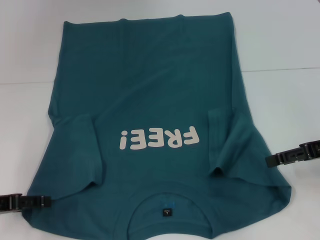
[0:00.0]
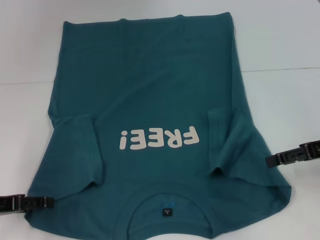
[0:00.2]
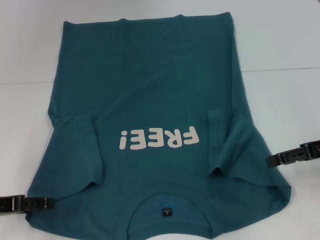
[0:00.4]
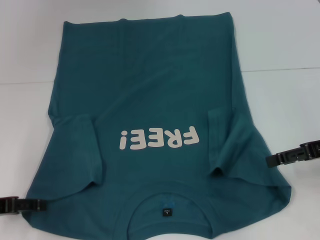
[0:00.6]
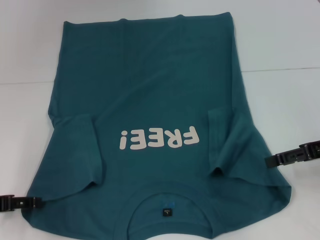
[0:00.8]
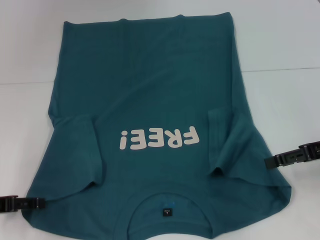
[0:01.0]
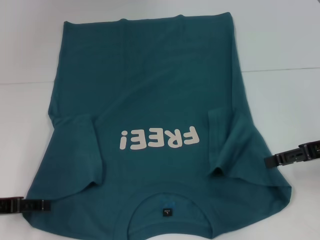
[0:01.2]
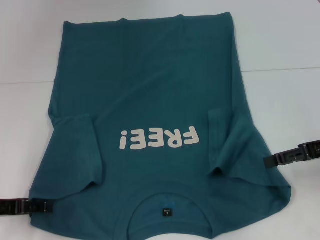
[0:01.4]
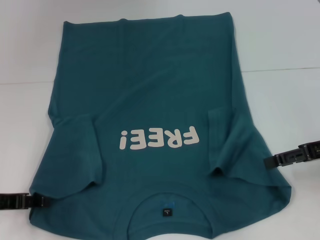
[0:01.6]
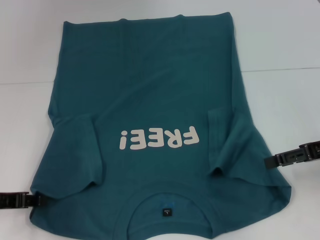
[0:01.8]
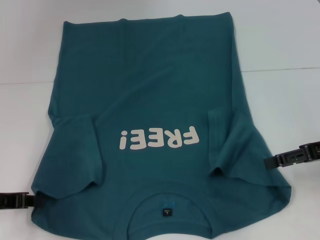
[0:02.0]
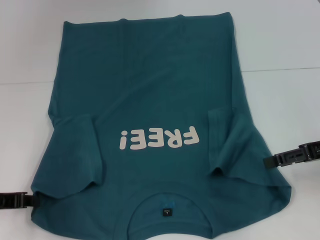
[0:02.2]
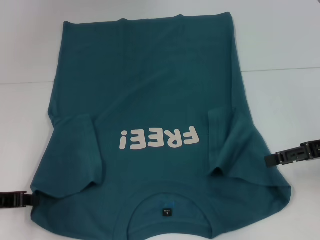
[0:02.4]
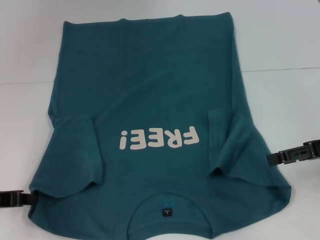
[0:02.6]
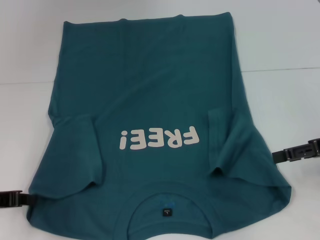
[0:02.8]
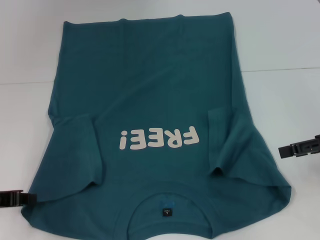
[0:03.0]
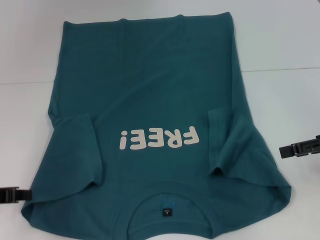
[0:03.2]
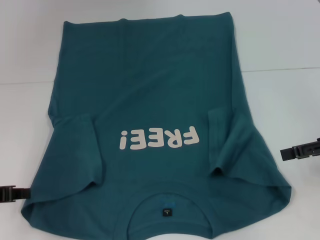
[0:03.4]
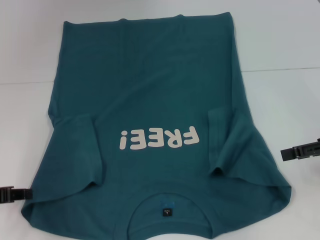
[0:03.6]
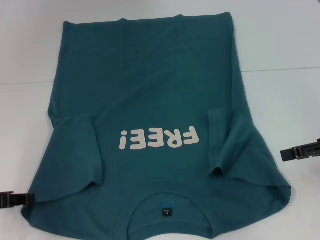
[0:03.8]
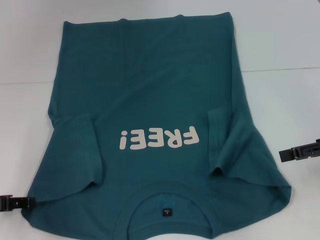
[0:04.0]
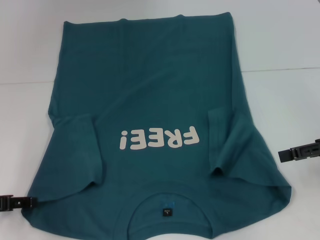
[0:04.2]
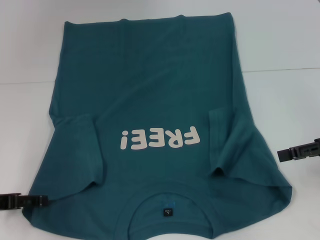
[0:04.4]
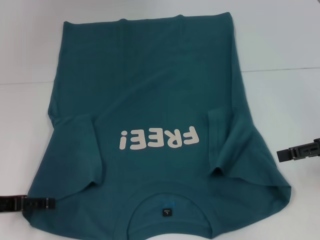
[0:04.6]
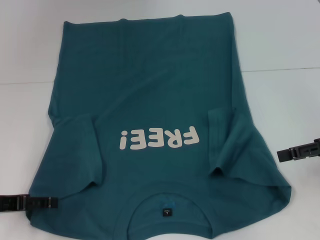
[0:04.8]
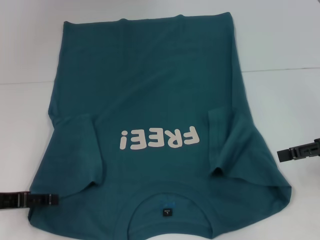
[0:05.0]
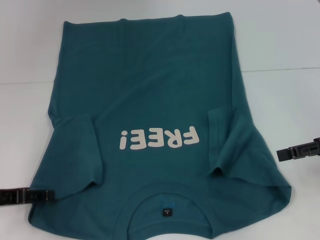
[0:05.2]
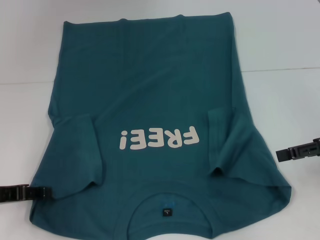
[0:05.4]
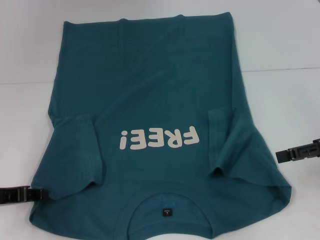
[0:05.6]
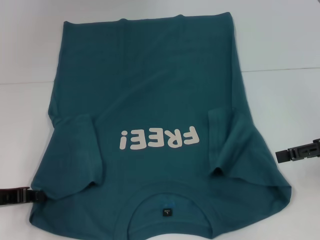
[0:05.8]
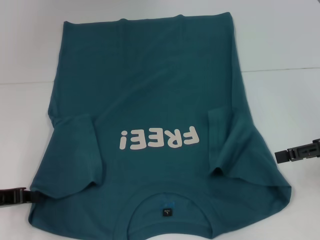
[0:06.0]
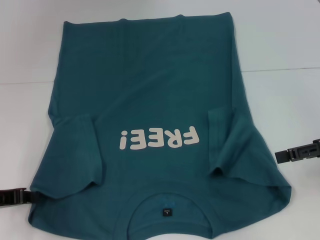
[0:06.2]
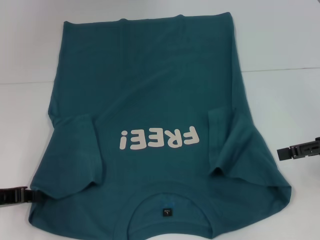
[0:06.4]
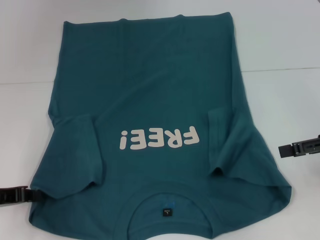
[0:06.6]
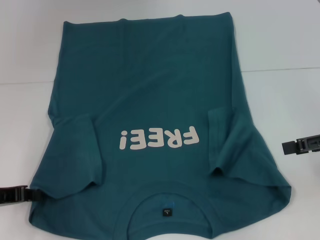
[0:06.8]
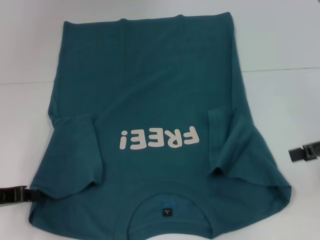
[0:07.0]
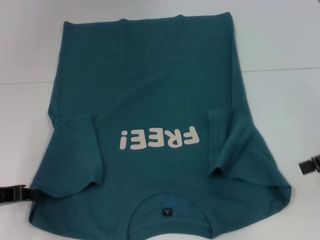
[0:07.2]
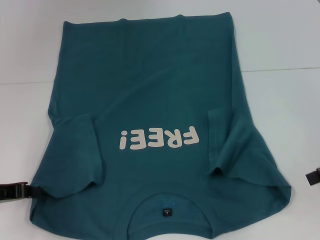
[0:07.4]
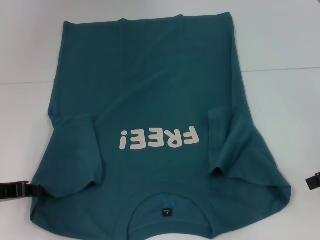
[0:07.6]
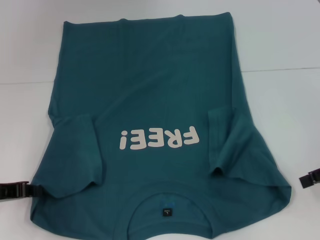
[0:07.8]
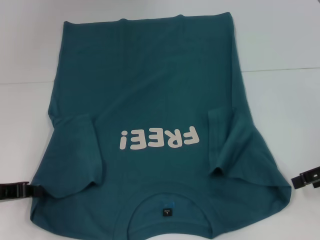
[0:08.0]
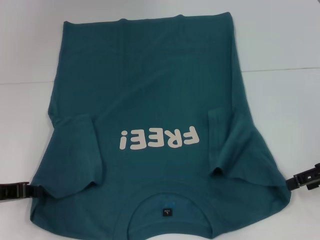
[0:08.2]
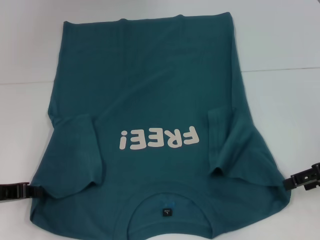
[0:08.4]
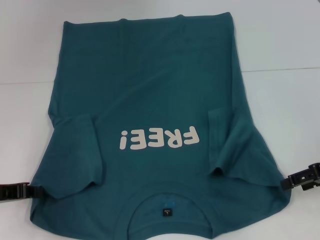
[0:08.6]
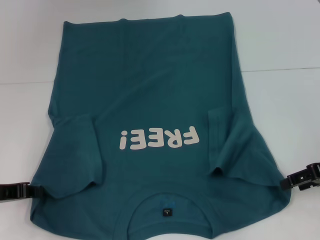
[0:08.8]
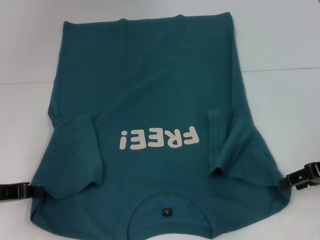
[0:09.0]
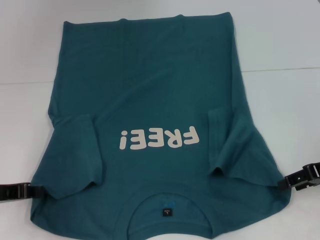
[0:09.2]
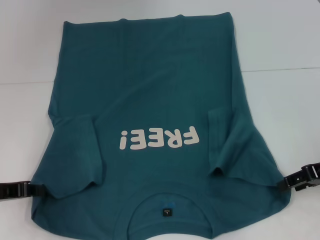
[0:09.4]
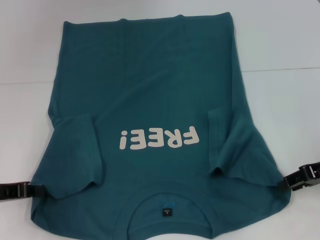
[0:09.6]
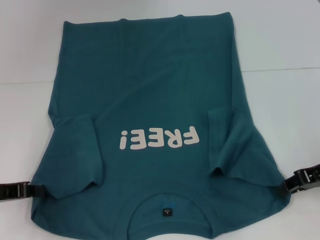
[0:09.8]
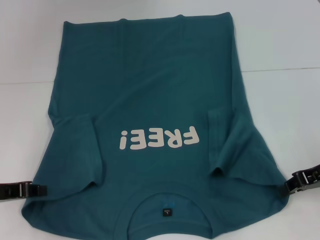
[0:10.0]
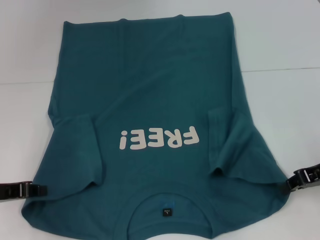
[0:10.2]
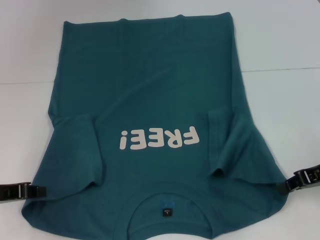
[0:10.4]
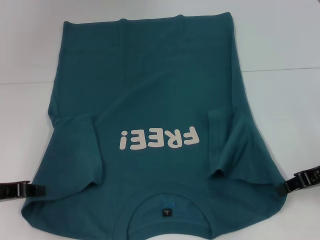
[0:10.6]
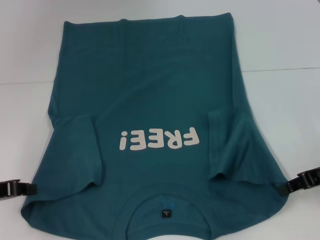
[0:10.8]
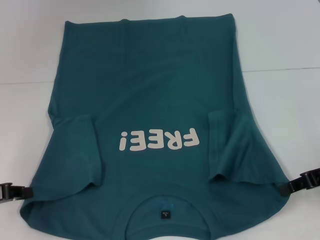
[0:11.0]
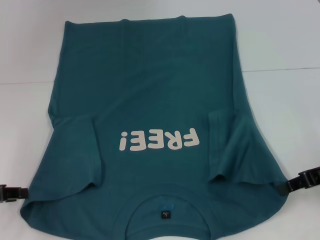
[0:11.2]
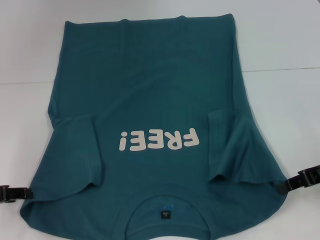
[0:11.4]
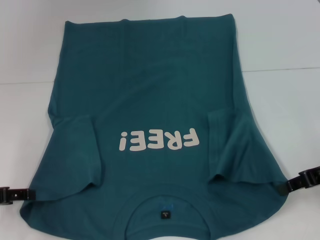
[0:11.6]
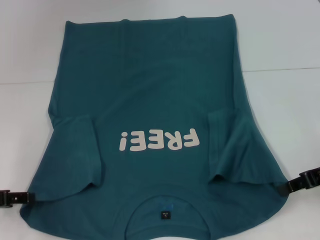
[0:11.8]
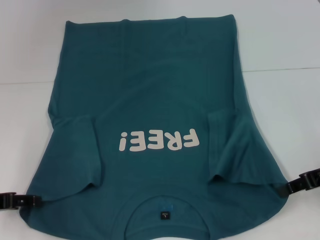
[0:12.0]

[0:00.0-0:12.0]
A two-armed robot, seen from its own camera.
Step, 0:00.0 to 0:10.2: Grab the bottom right corner with your right hand.
0:00.0 to 0:01.6: The grippers move only a little.
0:01.6 to 0:03.0: The left gripper closes up.
0:03.0 to 0:04.4: The left gripper opens up.
0:04.4 to 0:06.0: The left gripper closes its fingers.
0:06.0 to 0:07.6: The grippers stay close to where they were, moving slightly.
0:07.6 to 0:09.0: The right gripper ends up roughly 5 cm from where it was.
0:09.0 to 0:10.4: The right gripper closes.
0:10.4 to 0:12.0: The left gripper opens.

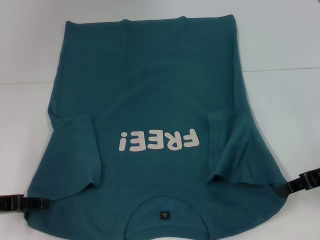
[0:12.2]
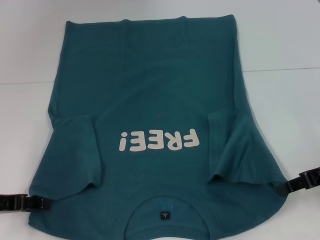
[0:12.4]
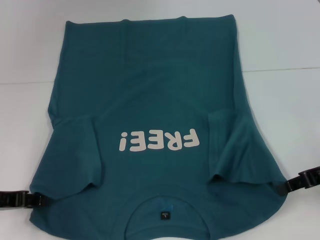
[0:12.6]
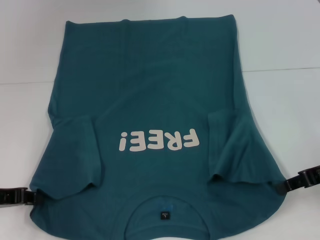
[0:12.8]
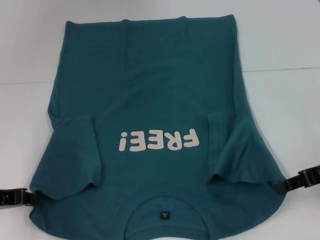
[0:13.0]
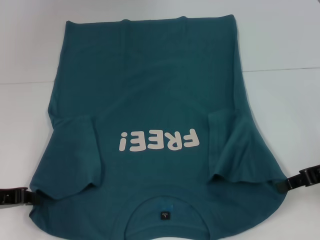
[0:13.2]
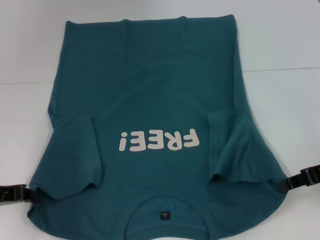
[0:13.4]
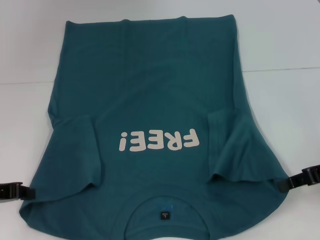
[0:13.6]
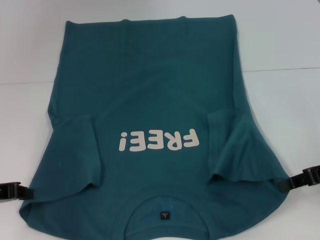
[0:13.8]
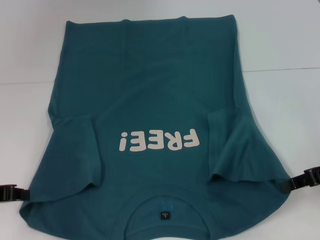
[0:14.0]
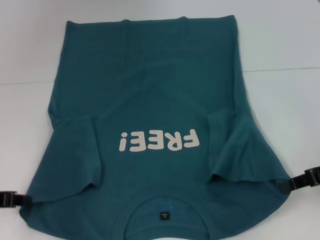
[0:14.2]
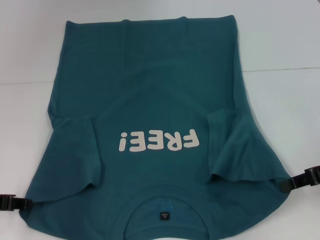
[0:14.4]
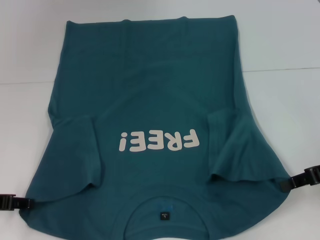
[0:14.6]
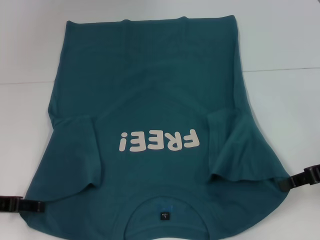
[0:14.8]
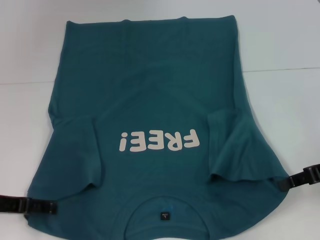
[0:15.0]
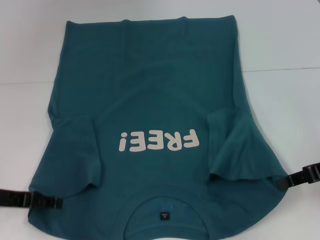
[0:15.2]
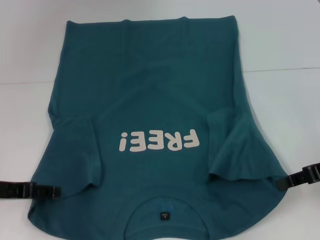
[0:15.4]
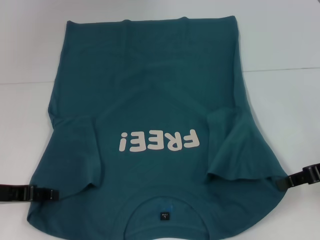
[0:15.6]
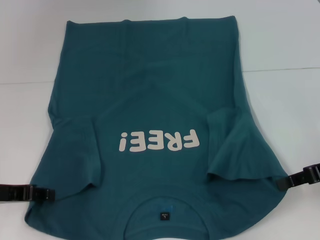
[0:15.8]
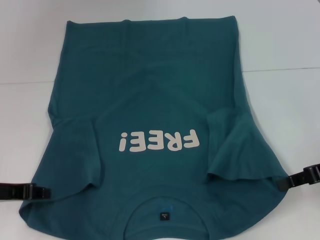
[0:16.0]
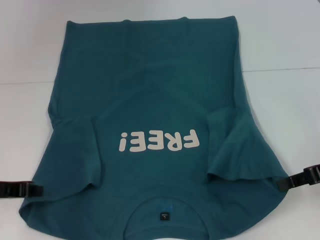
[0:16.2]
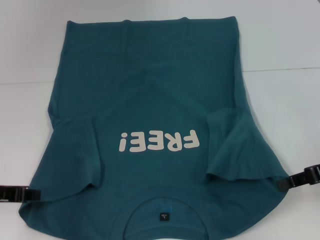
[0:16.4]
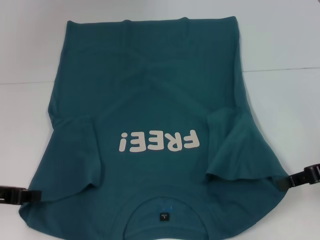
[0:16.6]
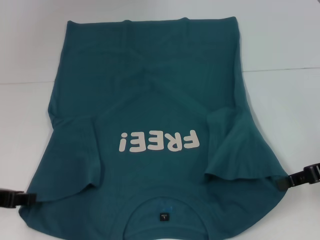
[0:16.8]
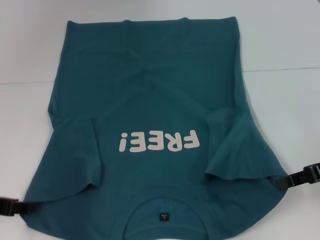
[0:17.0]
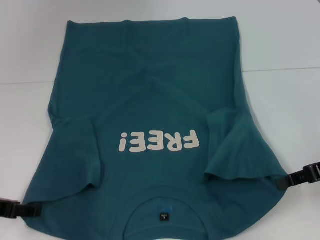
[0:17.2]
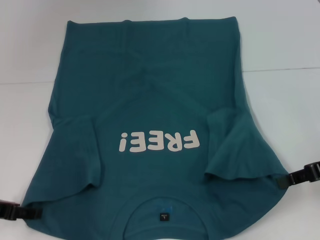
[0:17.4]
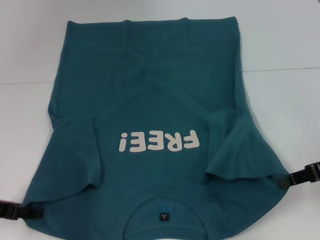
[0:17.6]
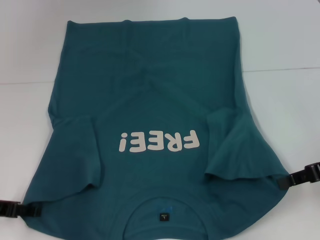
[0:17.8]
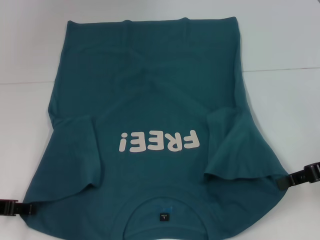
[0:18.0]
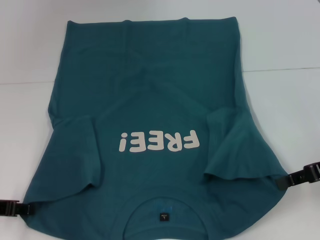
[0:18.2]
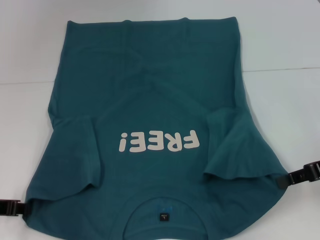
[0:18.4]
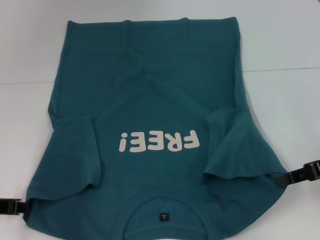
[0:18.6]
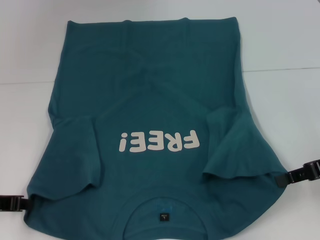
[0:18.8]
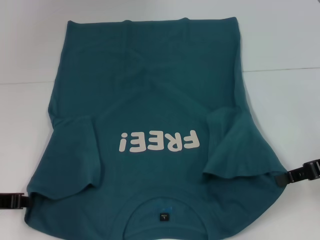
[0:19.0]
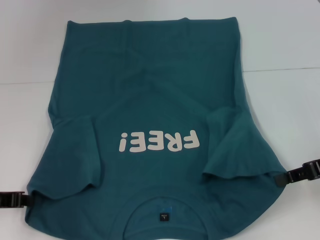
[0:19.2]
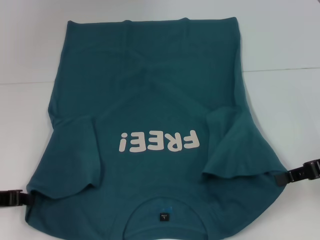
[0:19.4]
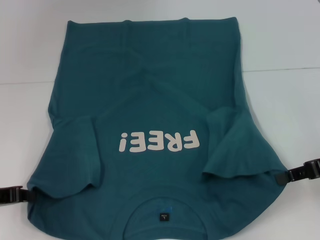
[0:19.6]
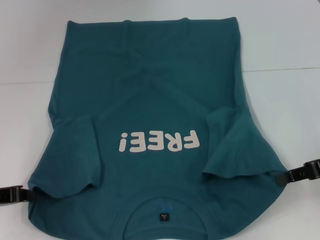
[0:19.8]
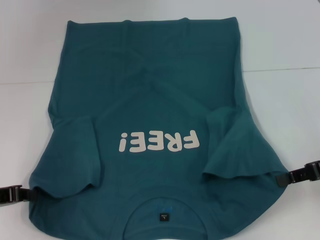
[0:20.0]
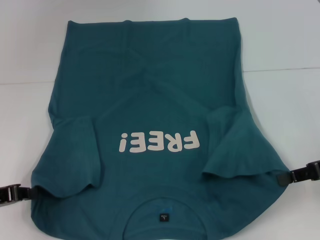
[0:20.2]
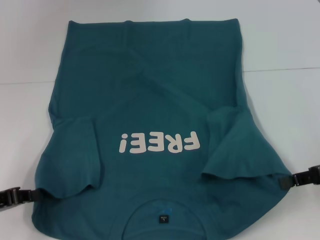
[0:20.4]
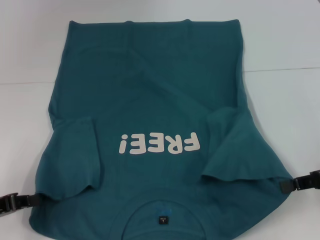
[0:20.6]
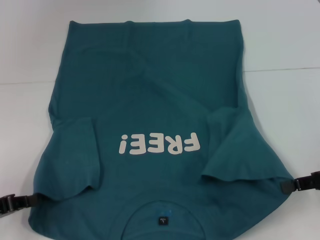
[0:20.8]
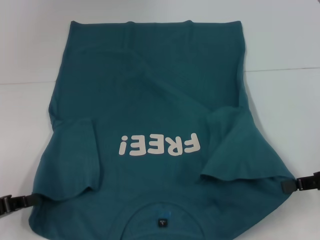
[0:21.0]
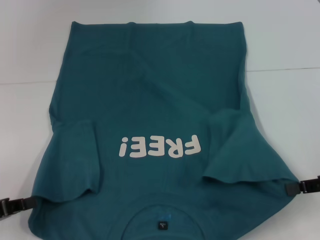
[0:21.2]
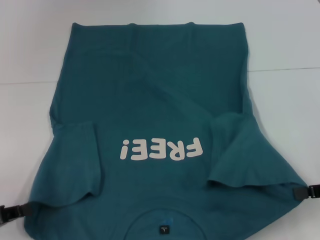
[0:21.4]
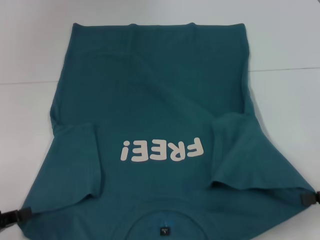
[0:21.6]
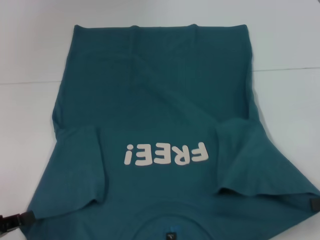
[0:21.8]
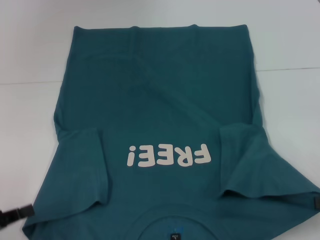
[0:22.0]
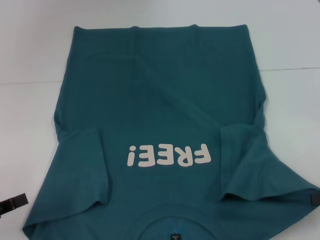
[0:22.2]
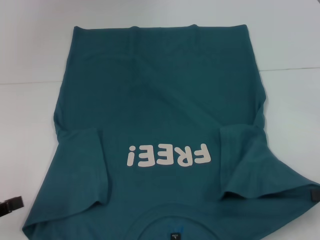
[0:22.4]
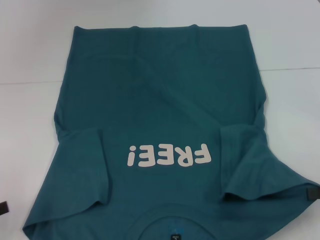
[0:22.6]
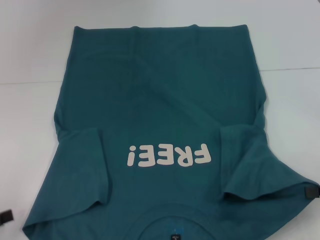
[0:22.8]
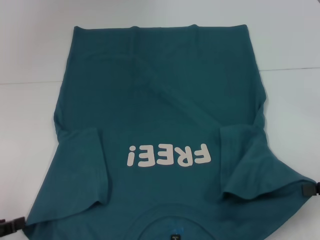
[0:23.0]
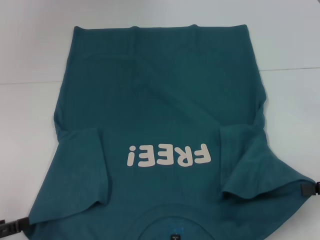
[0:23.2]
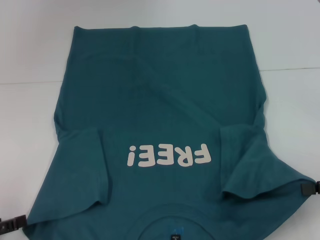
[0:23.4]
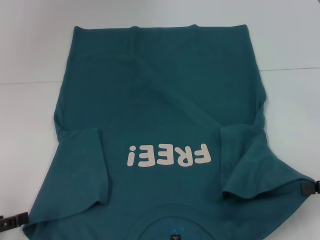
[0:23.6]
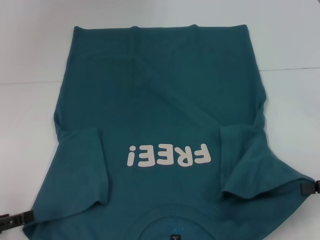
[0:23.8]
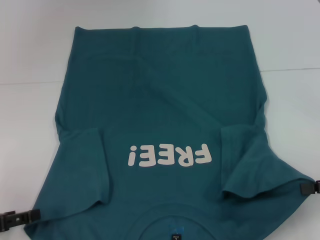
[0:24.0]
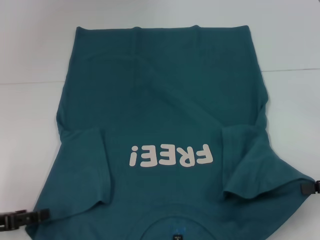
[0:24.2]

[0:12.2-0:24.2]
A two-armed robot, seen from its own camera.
0:12.2 to 0:13.8: The left gripper closes up.
0:13.8 to 0:15.2: The left gripper opens.
0:15.2 to 0:16.6: The left gripper closes up.
0:16.6 to 0:18.2: The left gripper opens its fingers.
0:18.2 to 0:19.8: The left gripper closes up.
0:19.8 to 0:21.2: The left gripper ends up some 5 cm from where it was.
0:21.2 to 0:22.6: The left gripper moves approximately 5 cm.
0:22.6 to 0:24.2: The left gripper ends up some 5 cm from where it was, and opens up.
